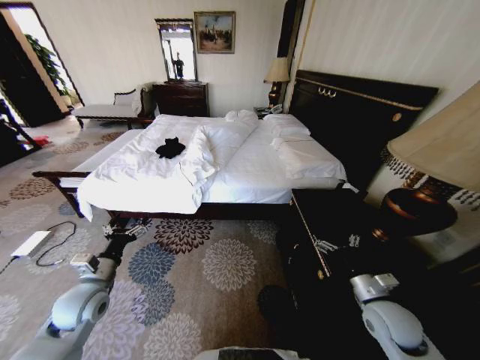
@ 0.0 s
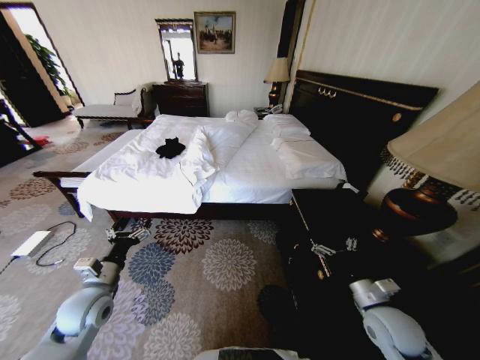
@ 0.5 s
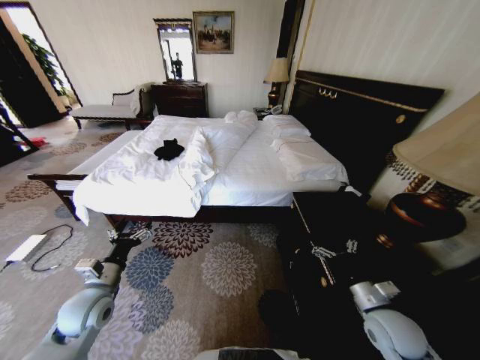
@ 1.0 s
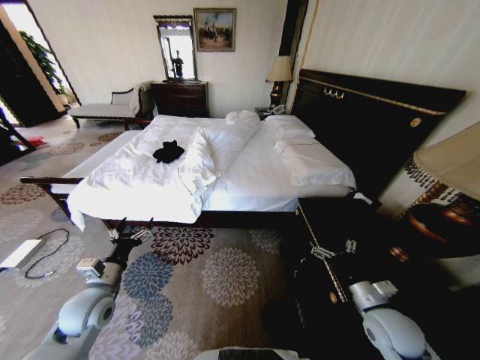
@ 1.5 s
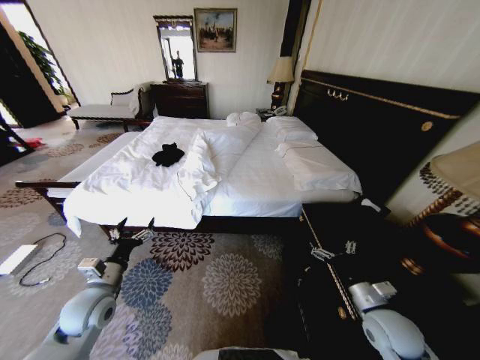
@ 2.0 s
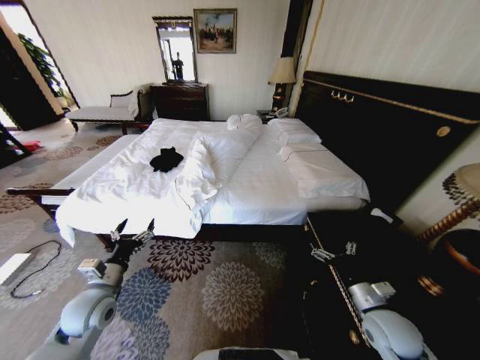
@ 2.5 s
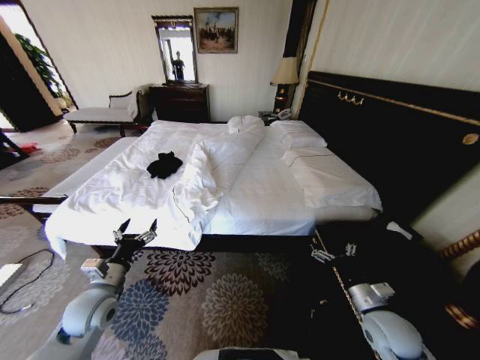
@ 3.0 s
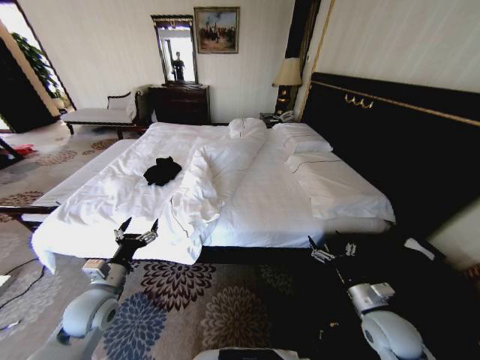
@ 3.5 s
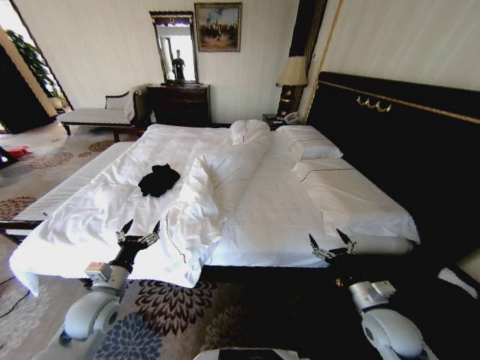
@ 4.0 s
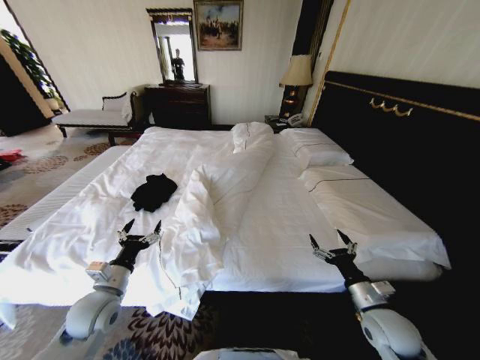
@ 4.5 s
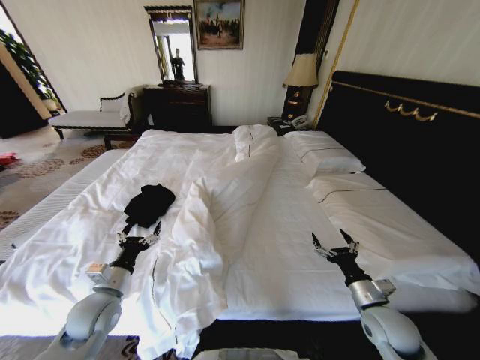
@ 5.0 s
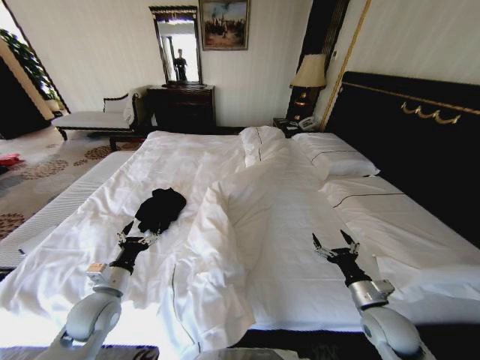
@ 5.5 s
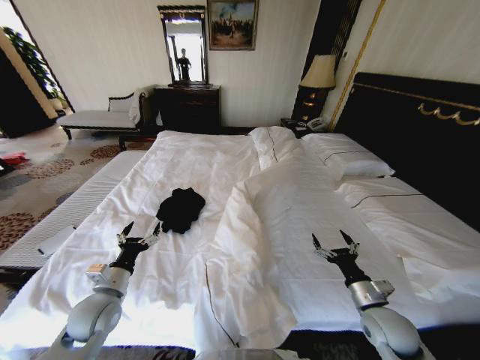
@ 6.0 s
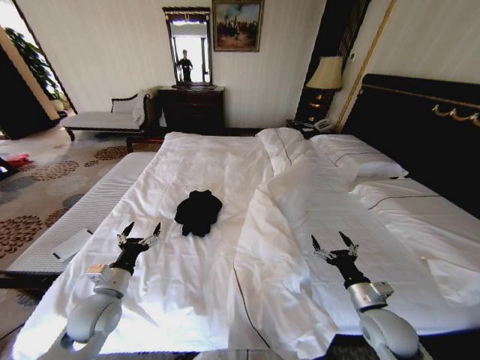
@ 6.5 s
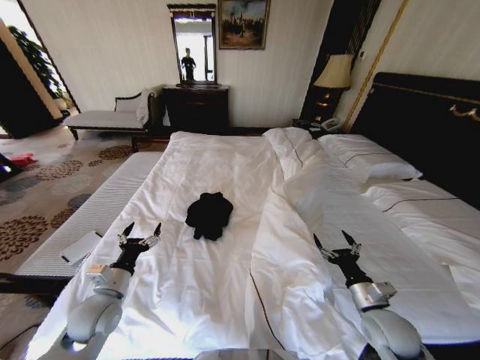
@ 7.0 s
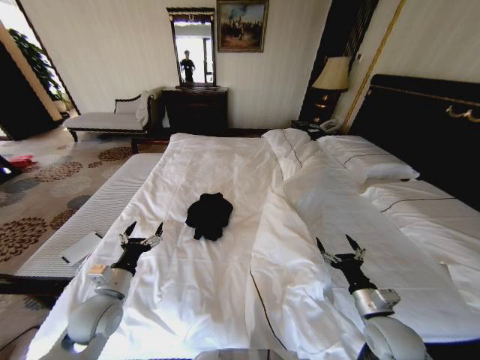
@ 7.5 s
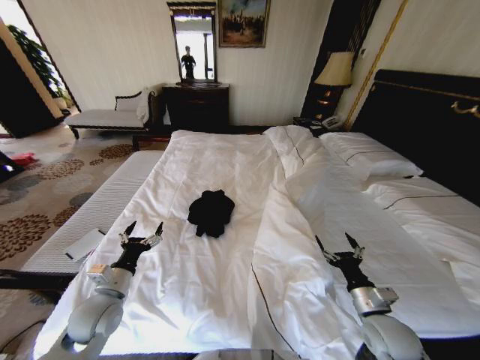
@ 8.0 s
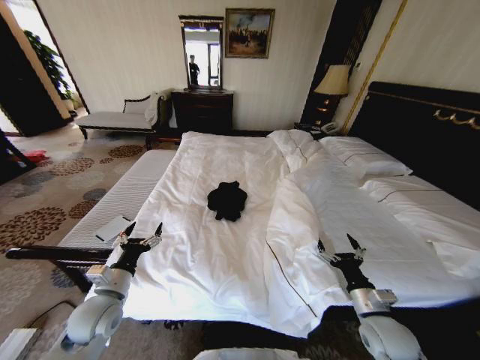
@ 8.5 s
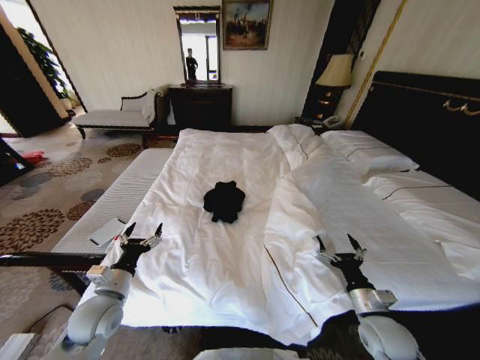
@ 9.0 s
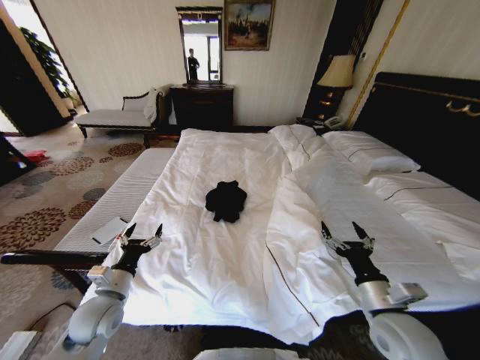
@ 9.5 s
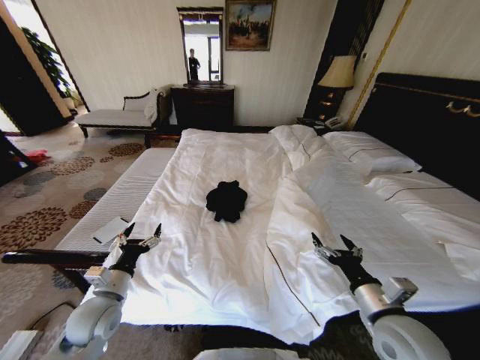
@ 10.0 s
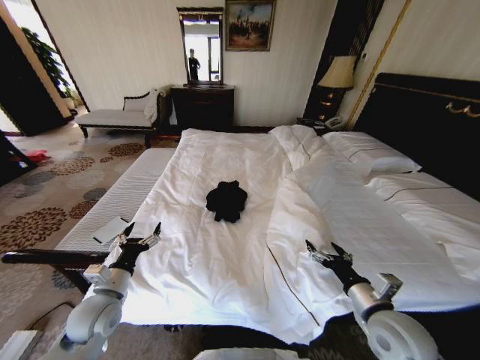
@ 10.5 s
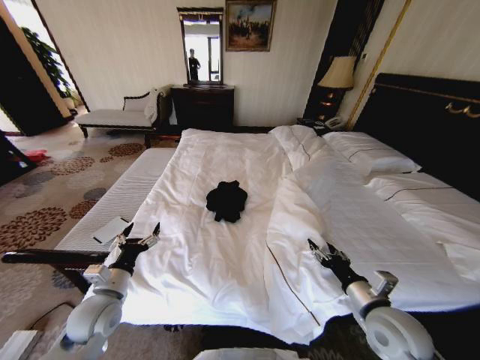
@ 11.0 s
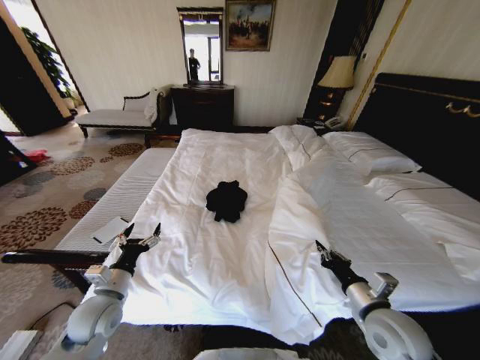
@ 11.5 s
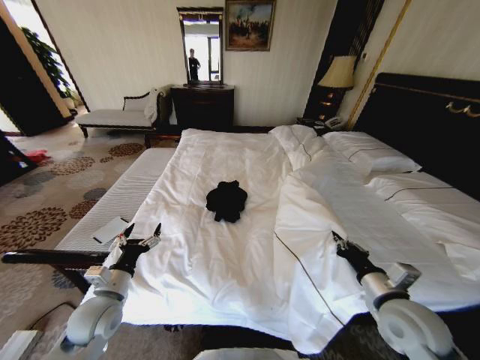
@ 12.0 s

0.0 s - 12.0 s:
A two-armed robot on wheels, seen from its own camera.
Task of the whole recording: Fold the clothes on the bed.
8.0 s - 10.0 s: The right gripper shifts approximately 10 cm upward.
10.0 s - 12.0 s: The right gripper closes.

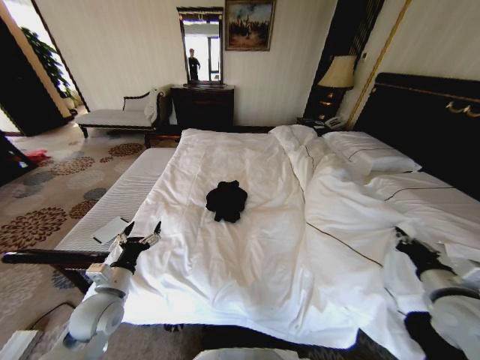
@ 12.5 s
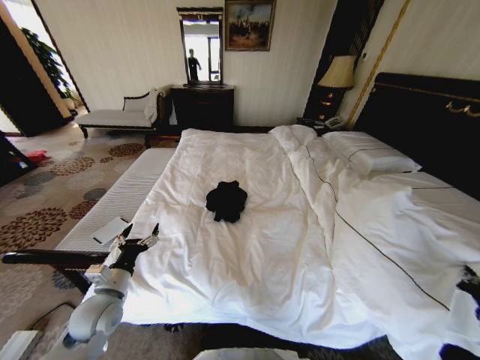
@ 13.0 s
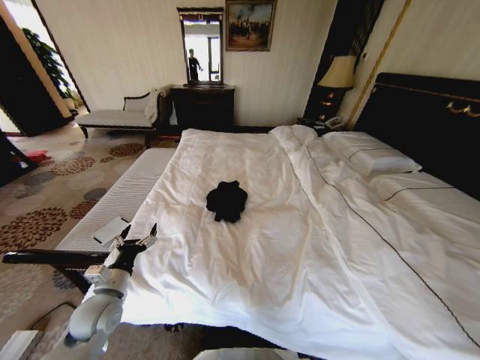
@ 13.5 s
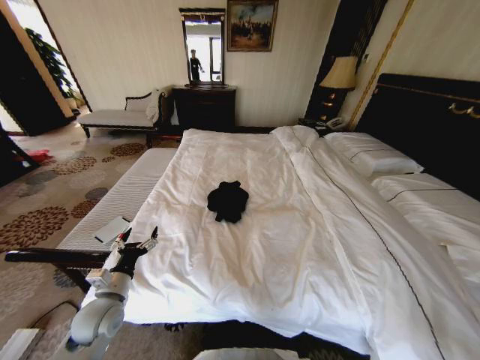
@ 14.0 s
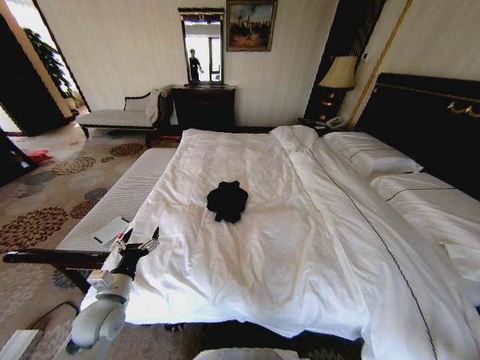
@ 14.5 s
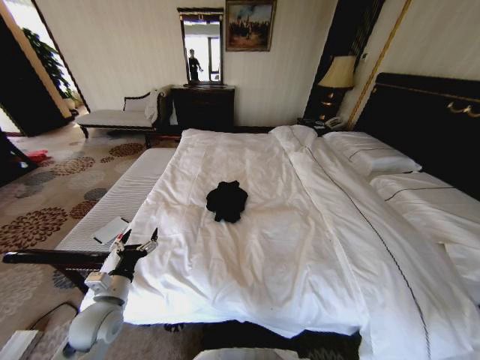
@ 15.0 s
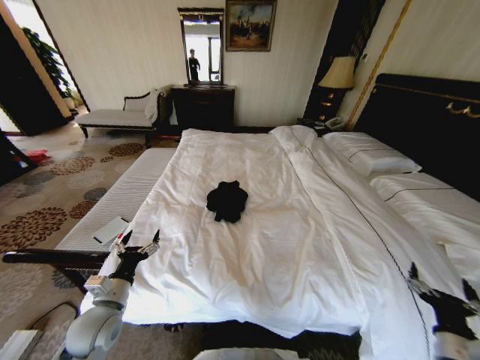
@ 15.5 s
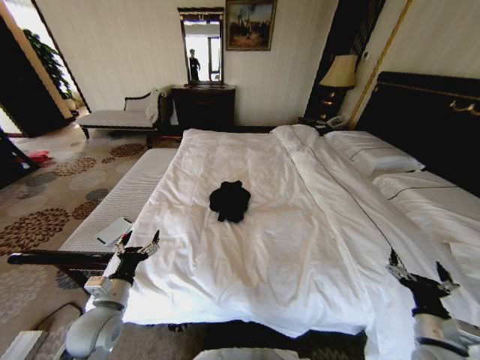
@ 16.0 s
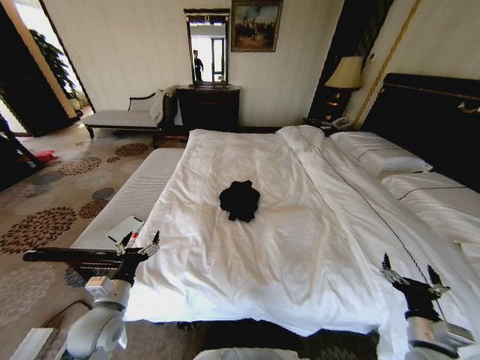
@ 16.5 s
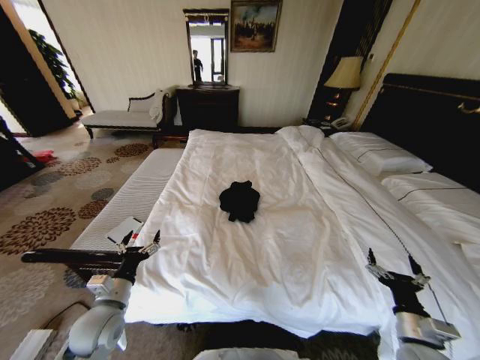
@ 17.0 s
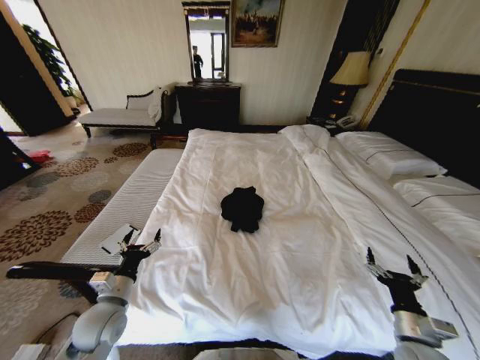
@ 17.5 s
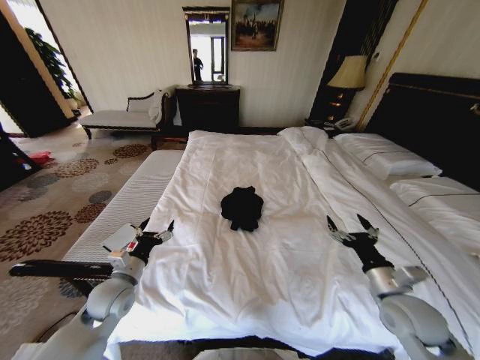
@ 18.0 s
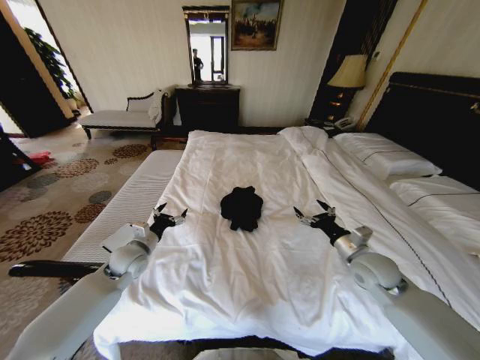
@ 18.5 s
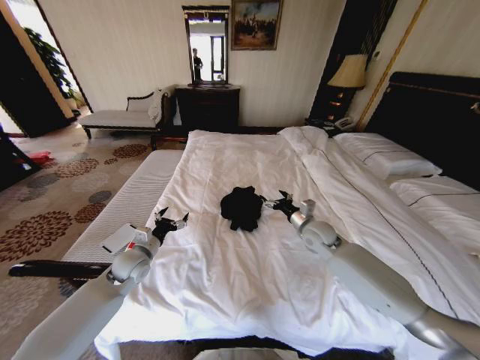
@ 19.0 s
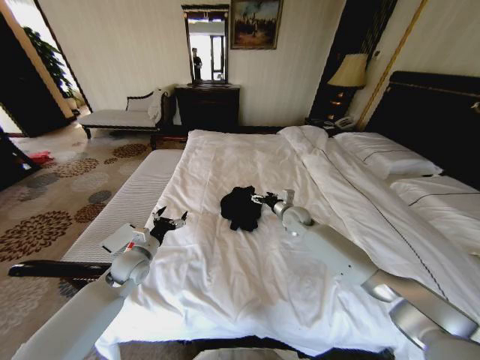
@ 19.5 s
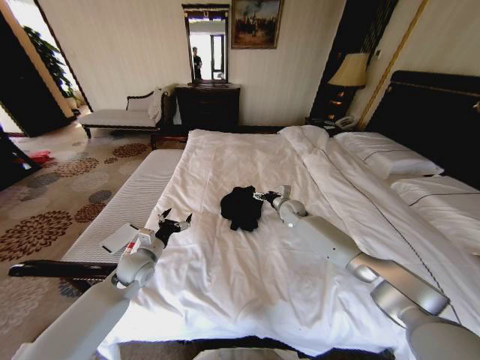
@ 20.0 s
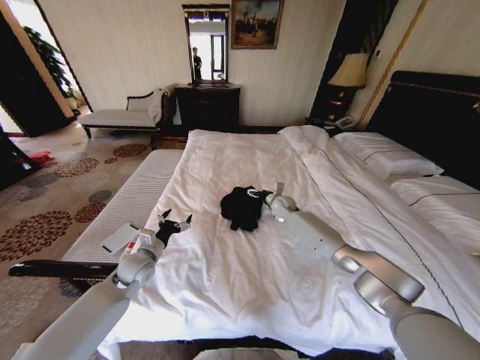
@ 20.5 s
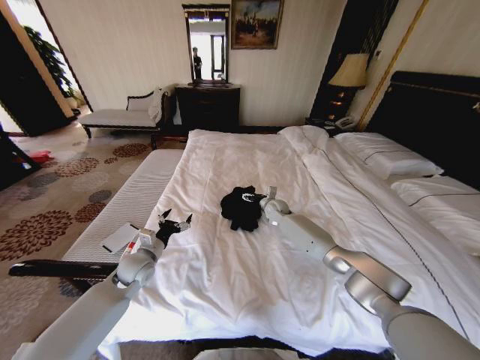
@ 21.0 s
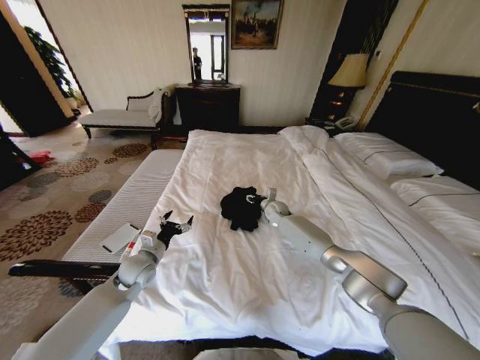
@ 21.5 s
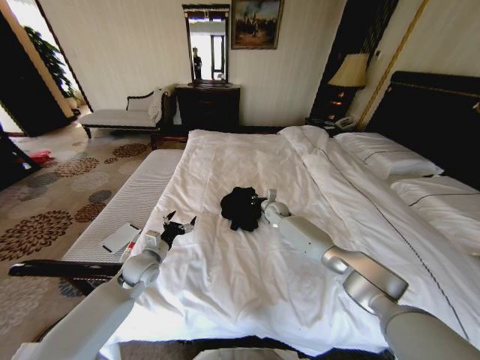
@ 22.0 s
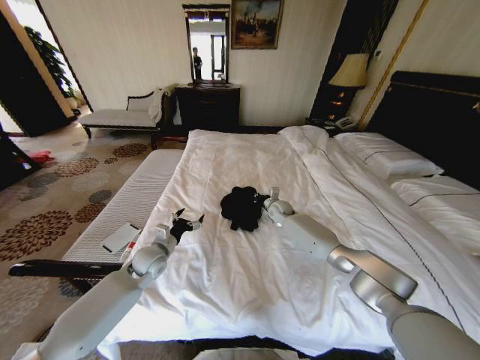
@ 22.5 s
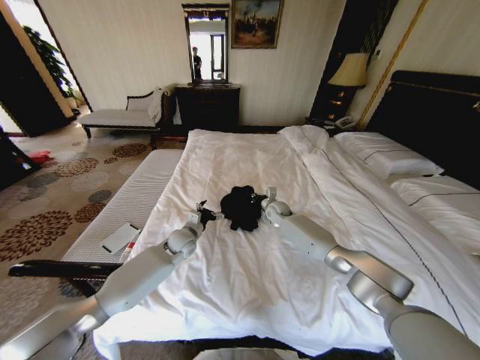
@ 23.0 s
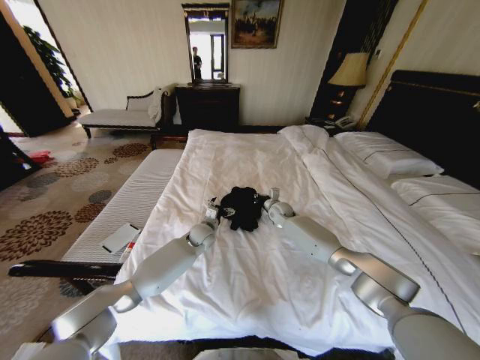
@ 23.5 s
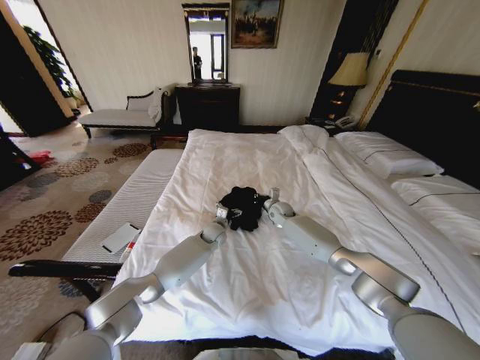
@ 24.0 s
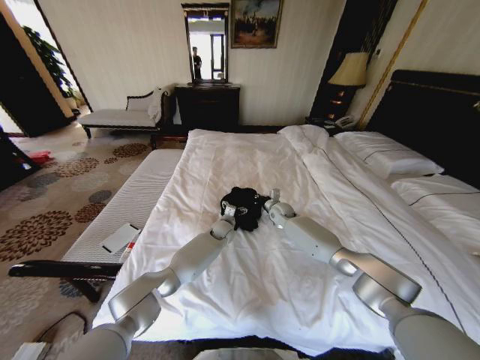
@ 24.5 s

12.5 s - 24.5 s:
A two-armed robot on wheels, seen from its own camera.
Task of the whole recording: Fold the clothes on the bed.
12.5 s - 14.5 s: The right gripper travels downward, backward and to the right by about 30 cm.
14.5 s - 16.5 s: The right gripper heads to the left, upward and forward, covering roughly 20 cm, and opens.
16.5 s - 18.5 s: The right gripper shifts approximately 20 cm forward and upward. The left gripper travels forward by approximately 15 cm.
18.5 s - 20.5 s: The right gripper moves forward and to the left, approximately 30 cm.
20.5 s - 22.5 s: The right gripper closes.
22.5 s - 24.5 s: The left gripper is displaced to the right and forward by some 25 cm.

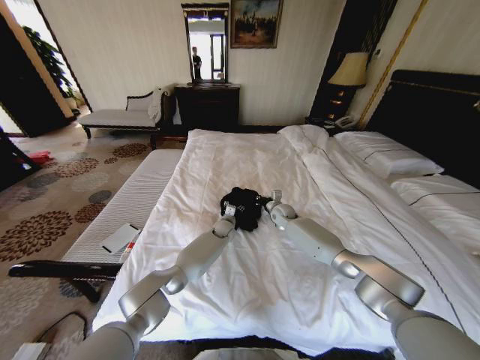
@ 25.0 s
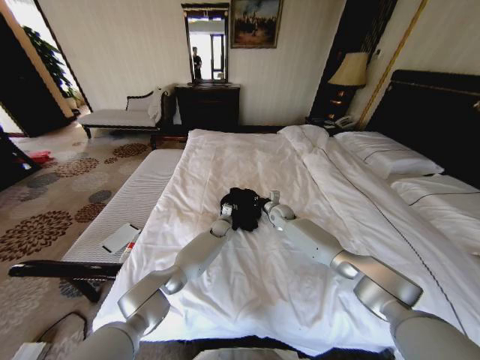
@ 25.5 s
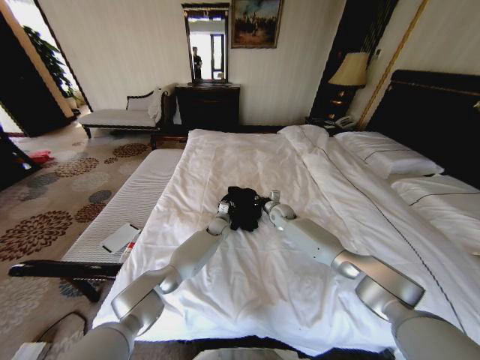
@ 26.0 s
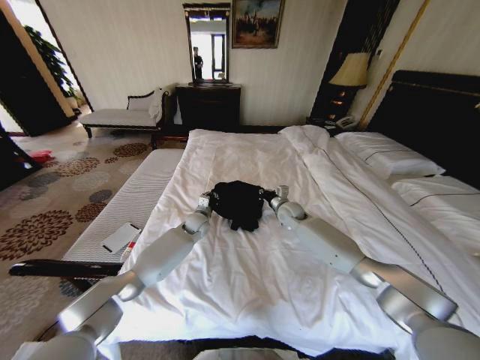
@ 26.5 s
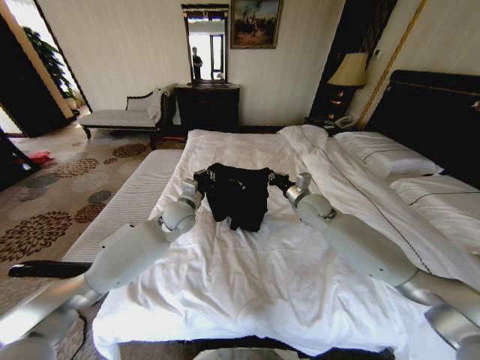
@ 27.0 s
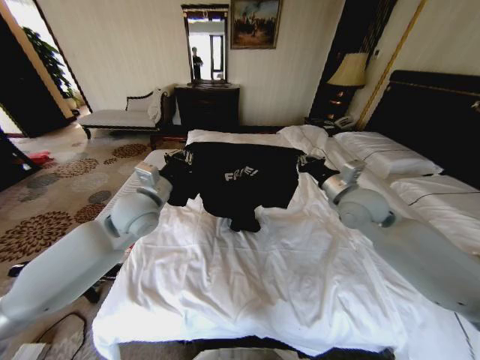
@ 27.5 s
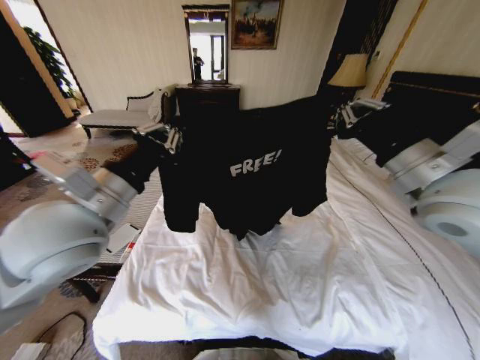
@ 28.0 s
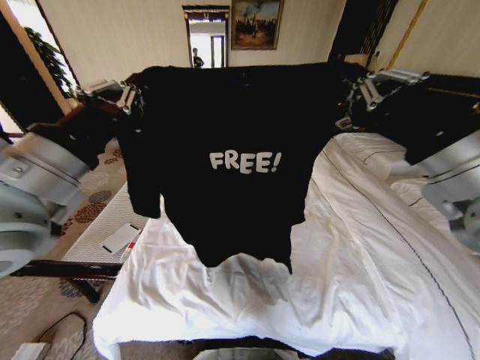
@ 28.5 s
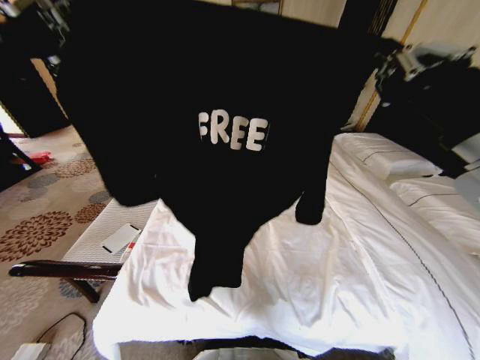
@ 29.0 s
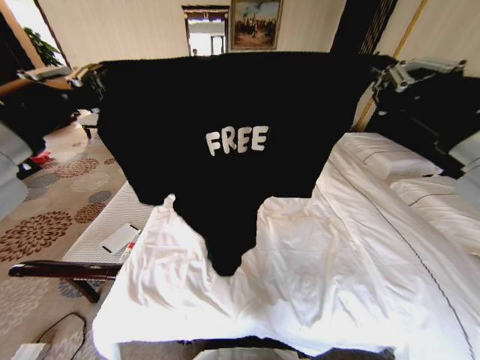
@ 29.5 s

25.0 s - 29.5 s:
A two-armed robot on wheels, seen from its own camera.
Task of the whole recording: Fold the clothes on the bed.
25.0 s - 27.0 s: The left gripper is displaced upward, to the left and backward by some 25 cm, and closes. Meanwhile the right gripper travels upward and backward by approximately 15 cm.
27.0 s - 29.5 s: The right gripper travels backward and upward by approximately 40 cm. The left gripper moves upward and backward, about 40 cm.
